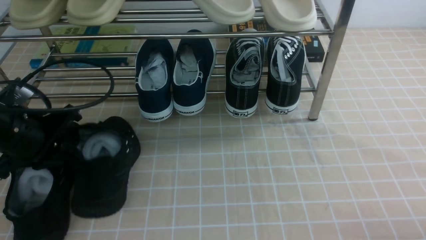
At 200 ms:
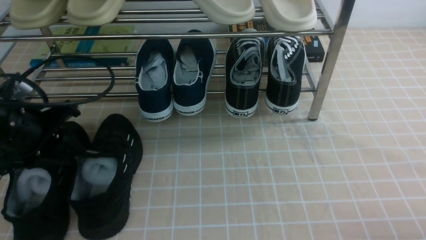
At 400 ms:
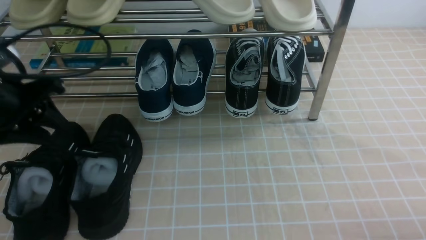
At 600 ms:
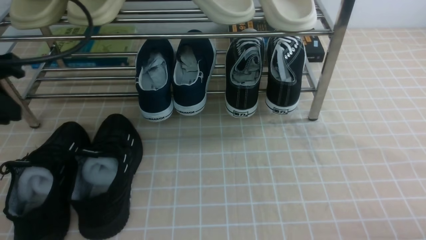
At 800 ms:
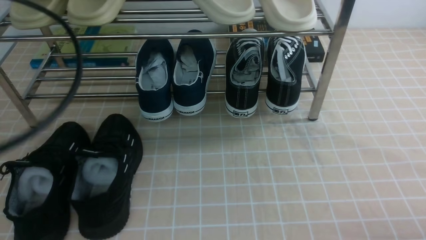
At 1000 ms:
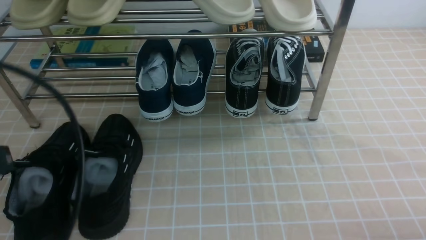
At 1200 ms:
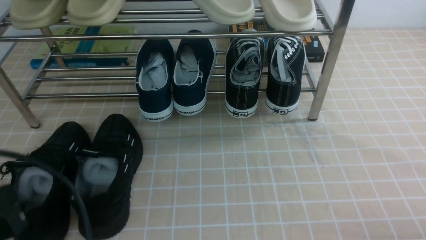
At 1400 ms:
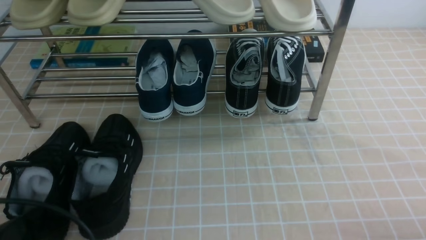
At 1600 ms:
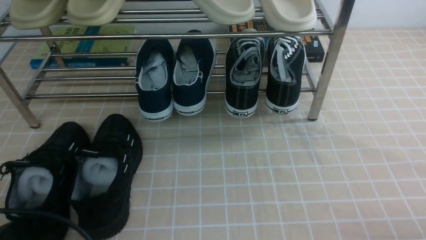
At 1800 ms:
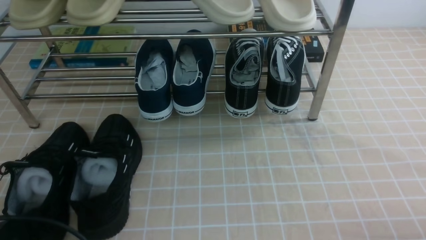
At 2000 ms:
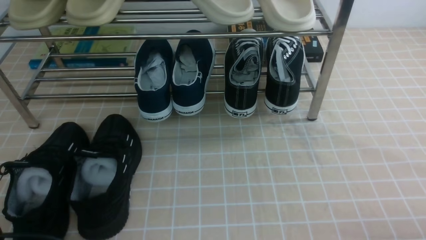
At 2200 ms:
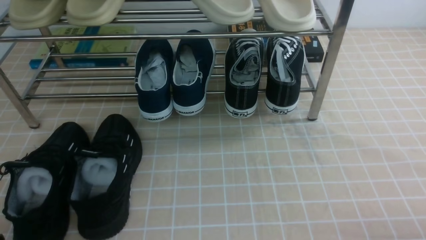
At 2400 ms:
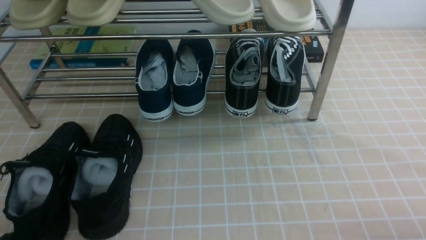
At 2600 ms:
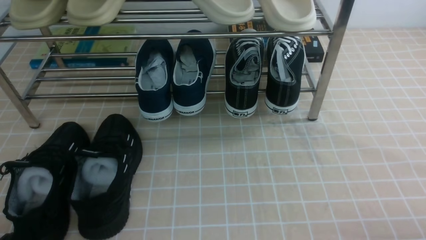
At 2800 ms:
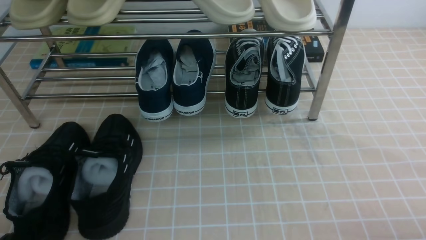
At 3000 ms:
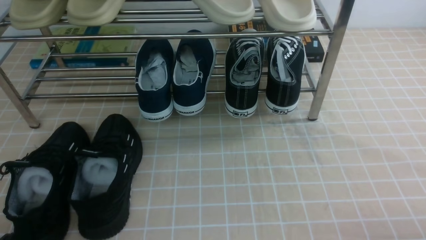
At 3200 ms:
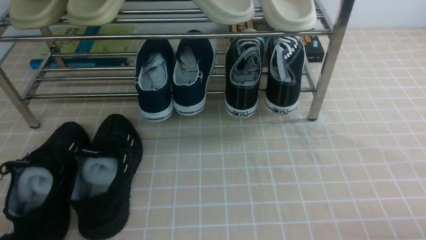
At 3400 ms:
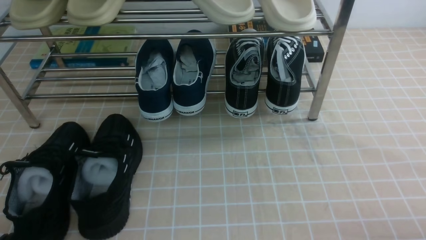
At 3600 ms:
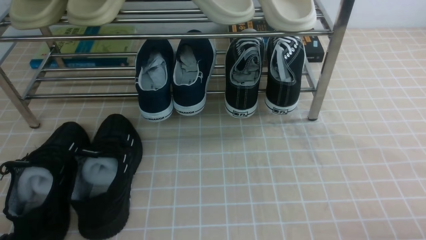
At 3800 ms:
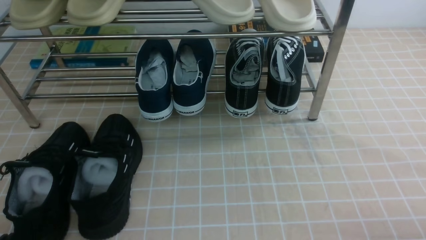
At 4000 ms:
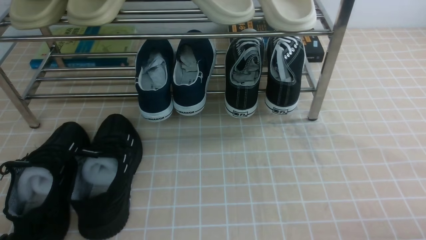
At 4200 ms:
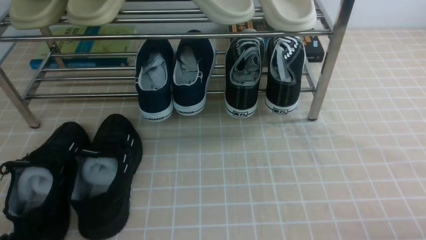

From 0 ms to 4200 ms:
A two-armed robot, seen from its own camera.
From 0 ms to 1400 ms: The left gripper moves backward, roughly 20 cm.
From 2800 ms to 4200 ms: Neither gripper changes place.

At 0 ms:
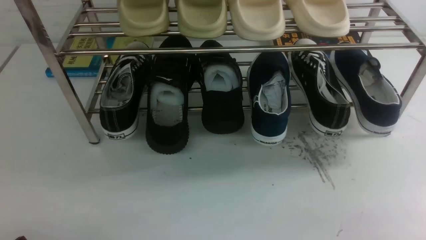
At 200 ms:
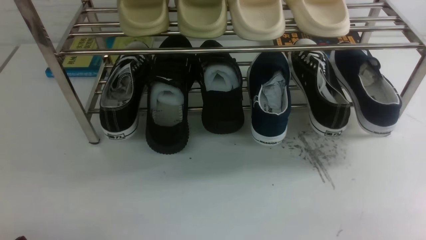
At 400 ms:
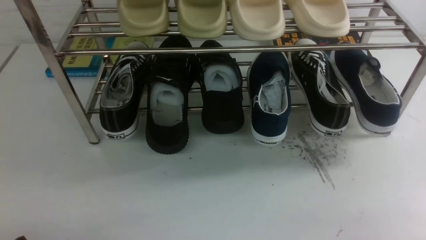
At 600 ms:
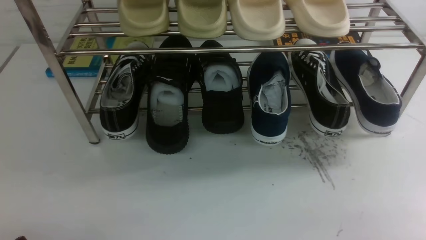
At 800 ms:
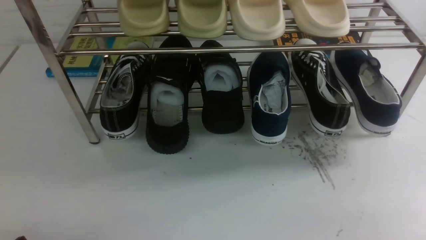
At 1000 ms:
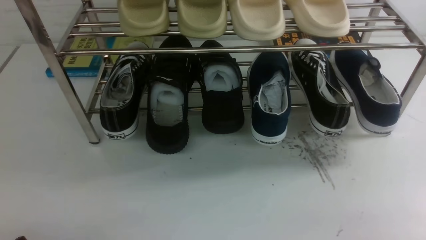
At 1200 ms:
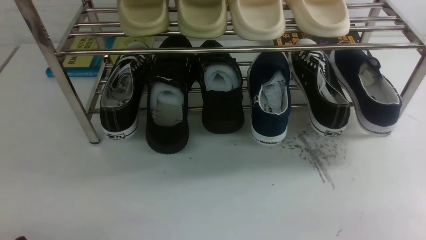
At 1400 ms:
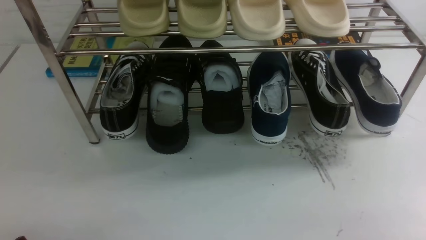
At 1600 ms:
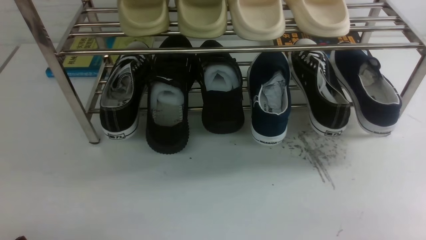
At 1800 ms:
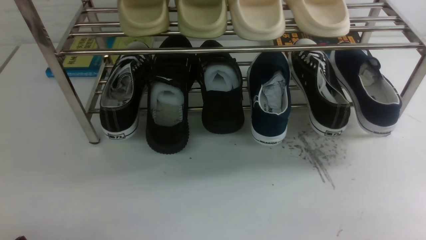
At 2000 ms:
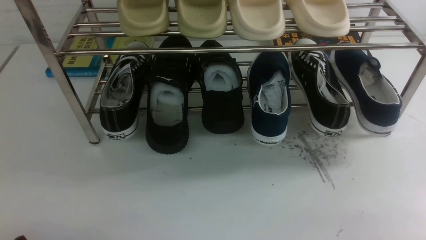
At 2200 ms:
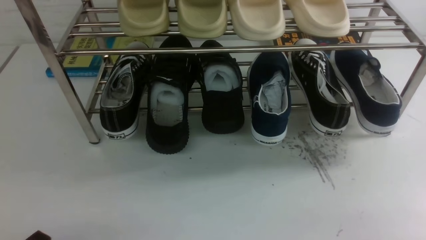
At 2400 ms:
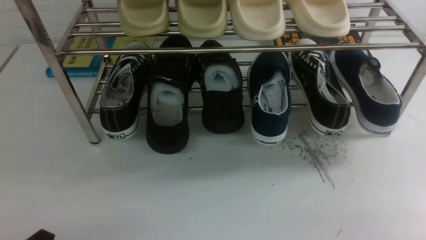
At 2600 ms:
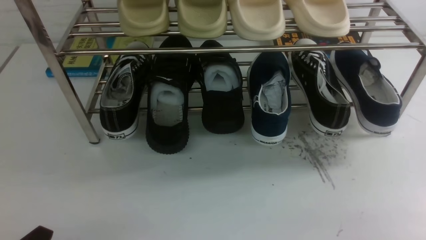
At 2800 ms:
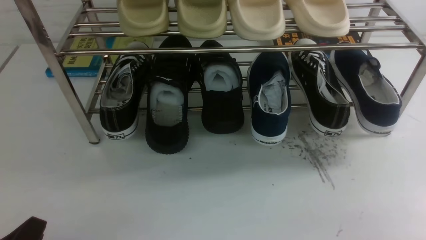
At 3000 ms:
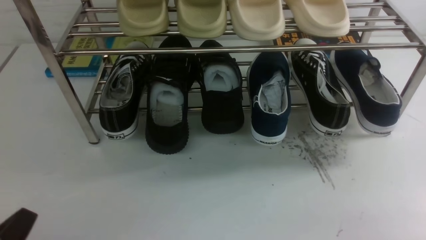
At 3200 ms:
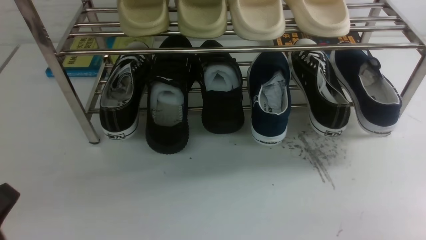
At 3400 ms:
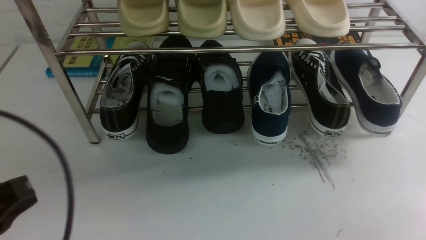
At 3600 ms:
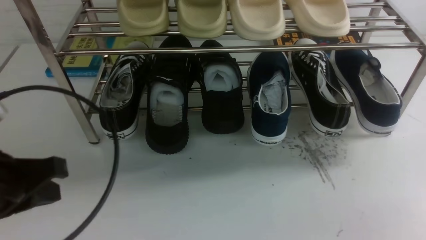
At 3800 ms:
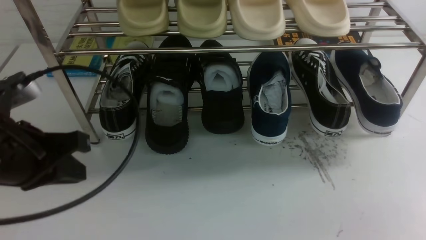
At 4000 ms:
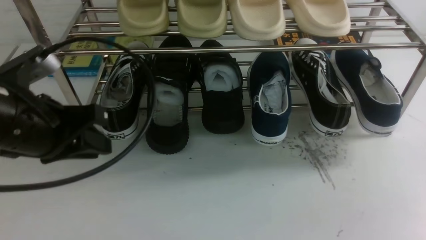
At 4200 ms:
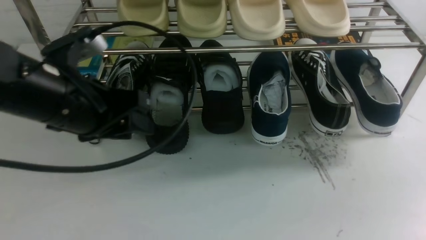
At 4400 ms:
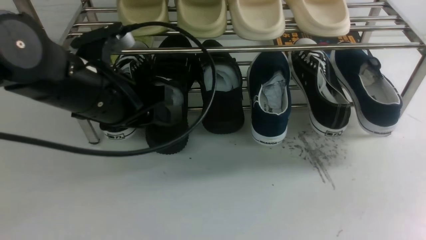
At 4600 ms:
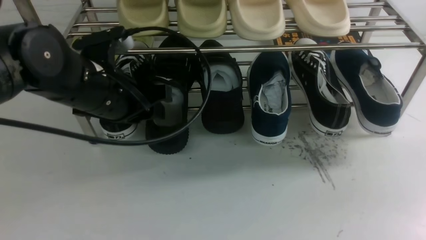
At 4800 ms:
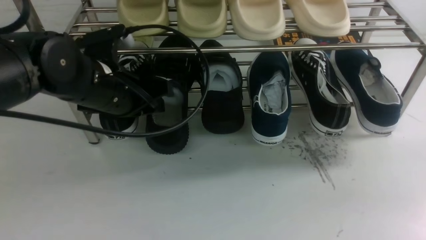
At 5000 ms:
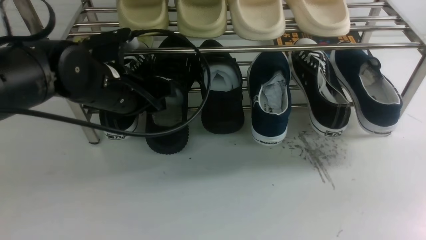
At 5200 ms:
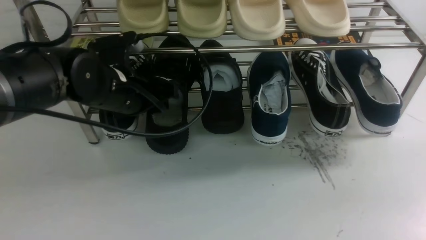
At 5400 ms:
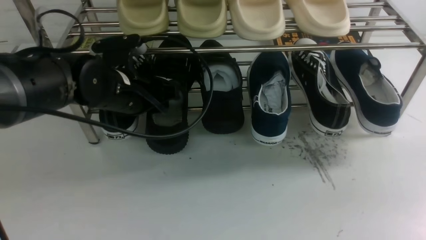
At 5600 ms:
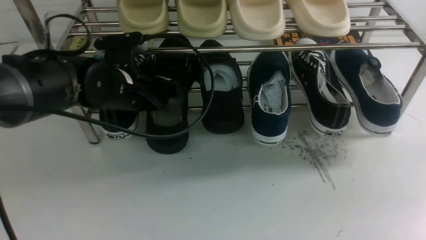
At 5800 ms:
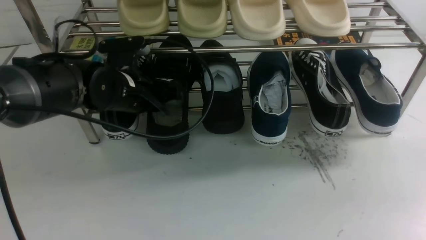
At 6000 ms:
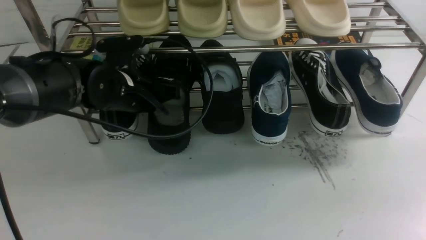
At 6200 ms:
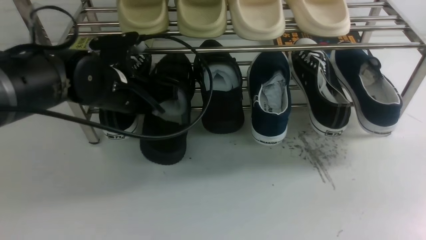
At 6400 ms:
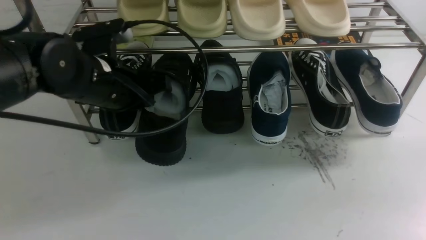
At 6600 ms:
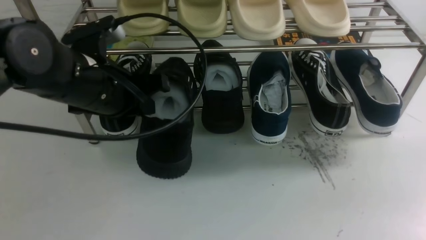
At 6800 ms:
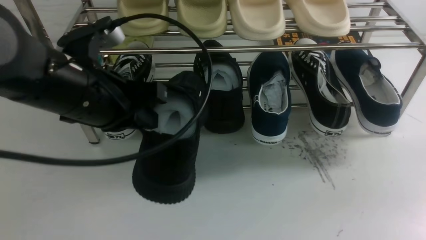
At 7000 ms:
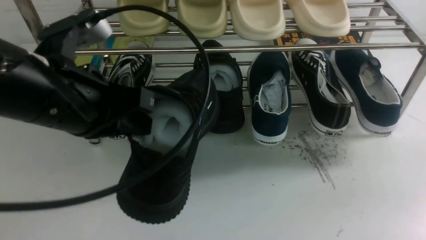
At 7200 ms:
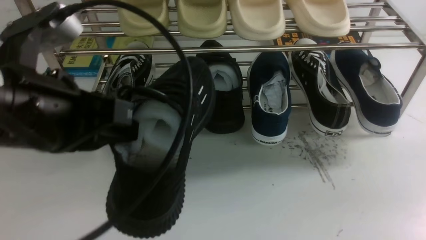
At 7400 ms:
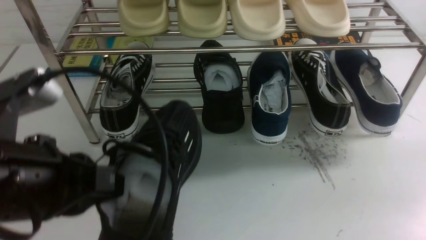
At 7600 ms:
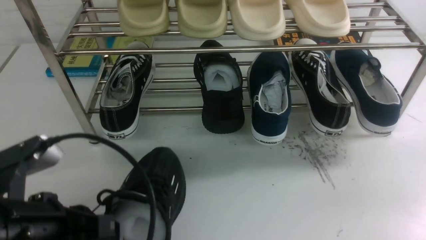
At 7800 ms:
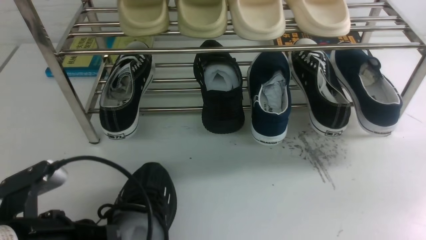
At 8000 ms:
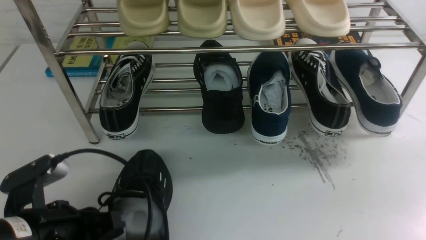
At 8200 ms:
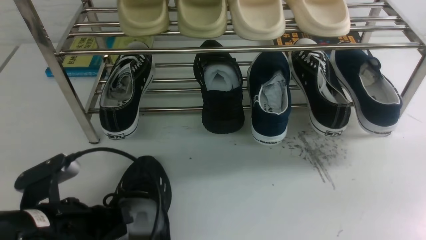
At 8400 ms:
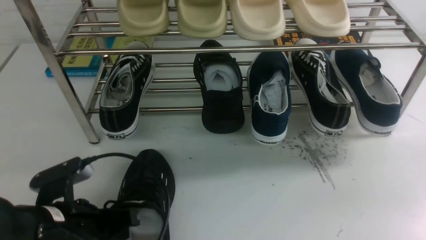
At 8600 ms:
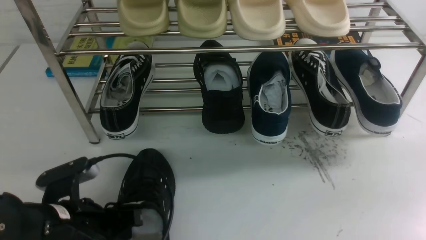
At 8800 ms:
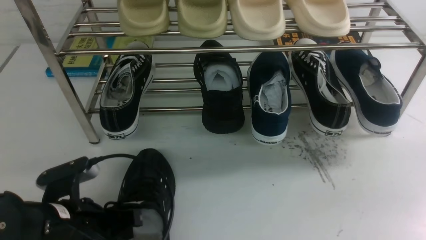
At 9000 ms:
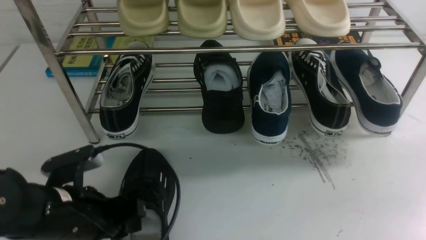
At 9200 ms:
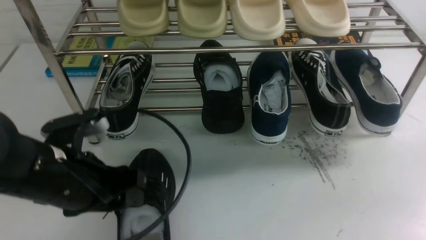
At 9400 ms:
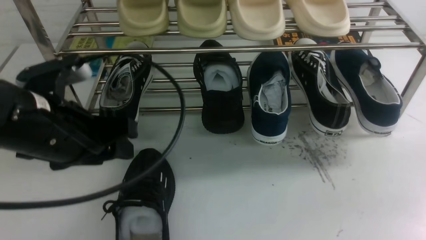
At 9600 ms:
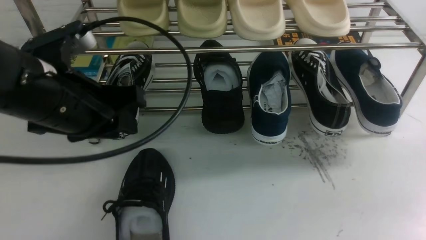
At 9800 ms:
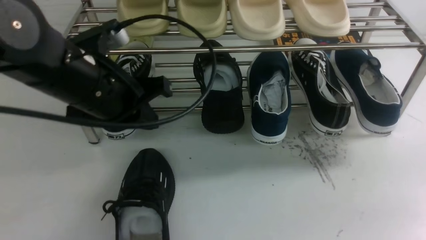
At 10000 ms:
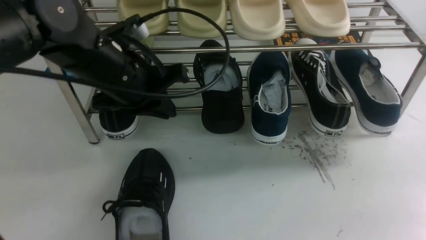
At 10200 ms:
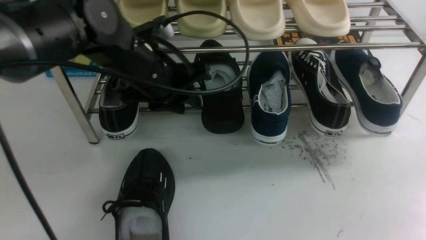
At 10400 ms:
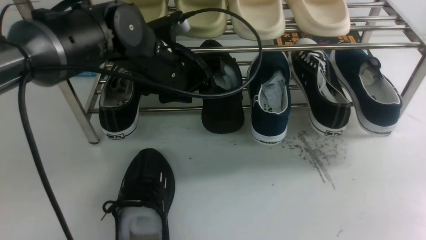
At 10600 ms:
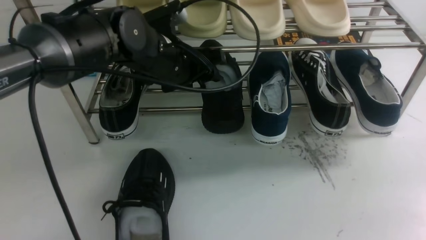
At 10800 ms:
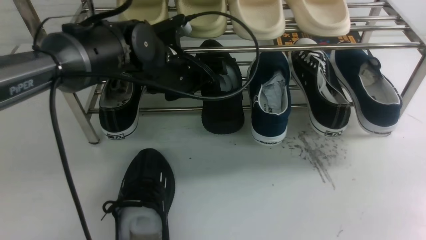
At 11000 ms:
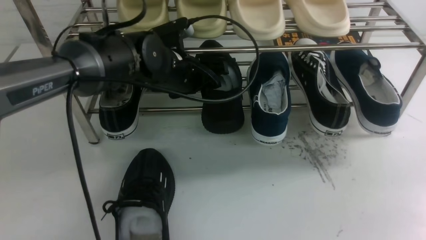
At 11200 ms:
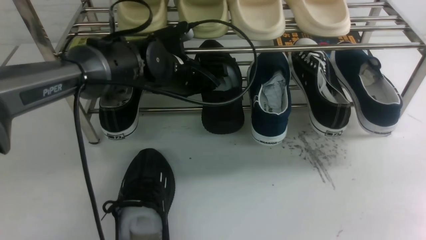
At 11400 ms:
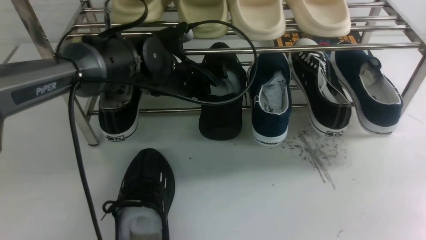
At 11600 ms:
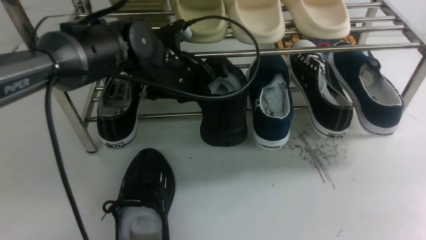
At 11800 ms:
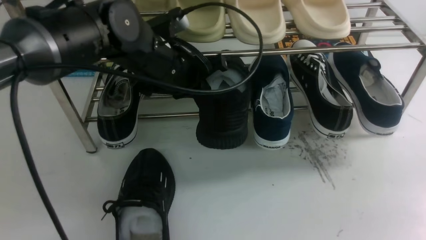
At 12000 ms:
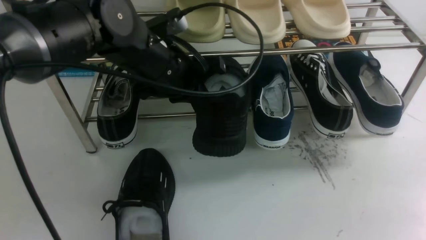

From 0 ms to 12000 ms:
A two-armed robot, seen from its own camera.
Step, from 0 ms to 6400 ms: use the left arm to clamp a shoe on the left side of the shoe rack.
Step, from 6600 ms to 9200 ms: Use your left arm to remove the clamped shoe from the shoe rack and put it down.
Step, from 9400 ms to 11600 ms: use the left arm to clamp a shoe in the middle of the shoe rack.
From 0 ms to 1600 ms: Both grippers stay about where they are.
From 1600 ms to 3000 ms: The left gripper is displaced upward by about 5 cm.
From 3000 ms to 4400 ms: The right gripper travels upward by some 10 cm, and closes its fingers; the left gripper goes approximately 25 cm forward and to the right, and opens up.
From 4400 ms to 6000 ms: The left gripper moves forward and downward, approximately 10 cm, and closes.
From 6000 ms to 7600 ms: The left gripper moves backward, roughly 20 cm.
From 7600 ms to 9000 ms: The left gripper shifts roughly 10 cm forward and downward, and opens its fingers.
From 9000 ms to 10400 ms: The right gripper closes up. Meanwhile the left gripper goes about 20 cm forward, to the right and upward, and closes and opens again.
From 10400 ms to 12000 ms: The left gripper closes.
